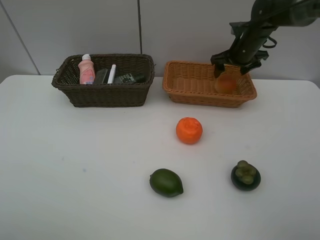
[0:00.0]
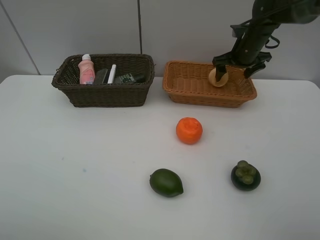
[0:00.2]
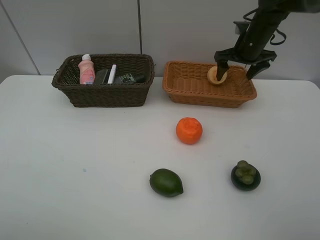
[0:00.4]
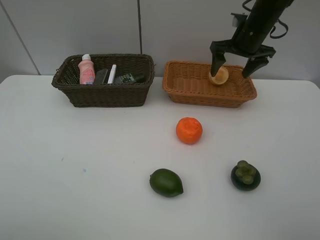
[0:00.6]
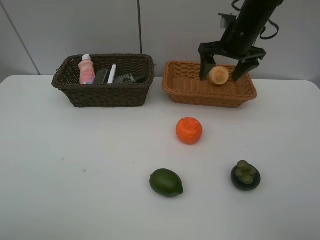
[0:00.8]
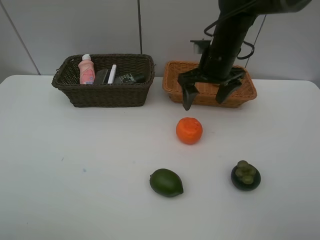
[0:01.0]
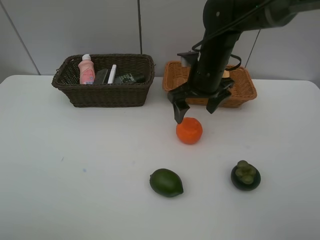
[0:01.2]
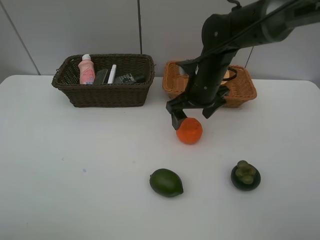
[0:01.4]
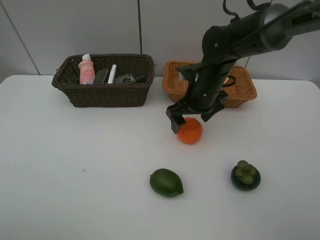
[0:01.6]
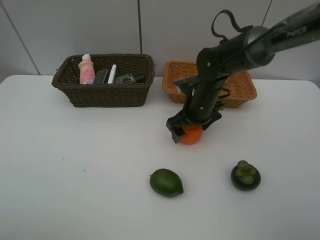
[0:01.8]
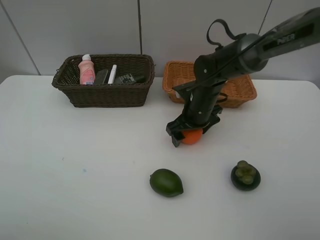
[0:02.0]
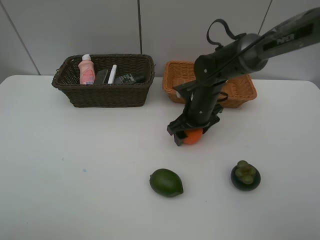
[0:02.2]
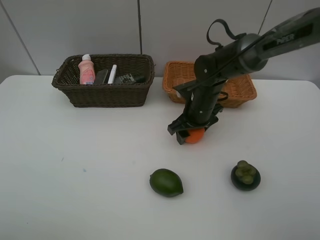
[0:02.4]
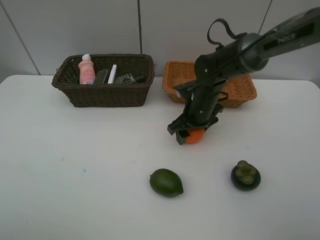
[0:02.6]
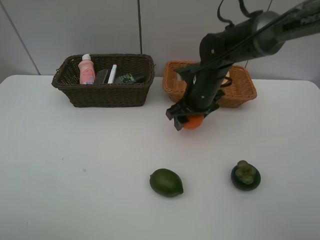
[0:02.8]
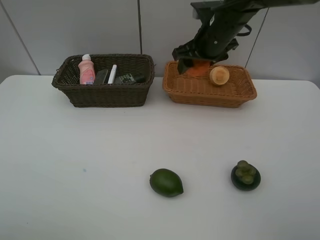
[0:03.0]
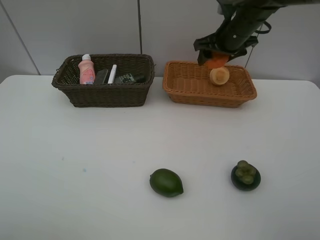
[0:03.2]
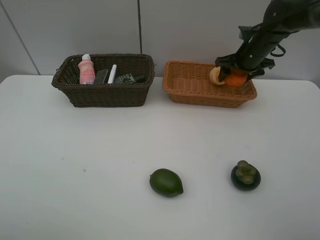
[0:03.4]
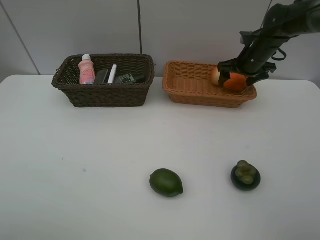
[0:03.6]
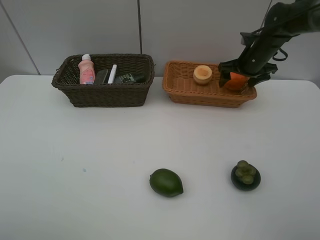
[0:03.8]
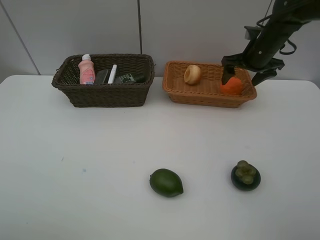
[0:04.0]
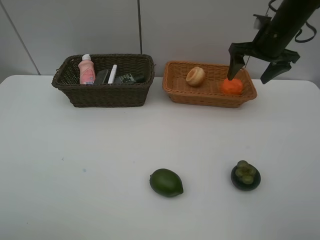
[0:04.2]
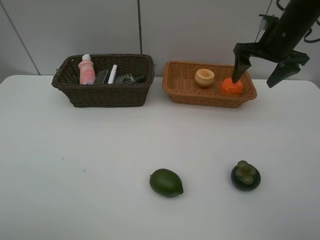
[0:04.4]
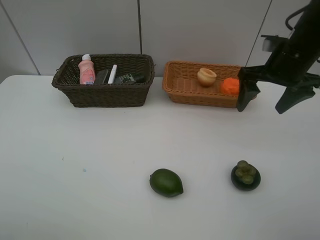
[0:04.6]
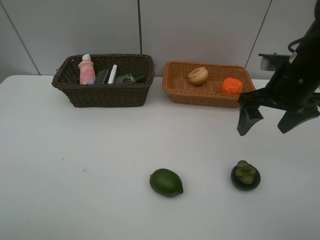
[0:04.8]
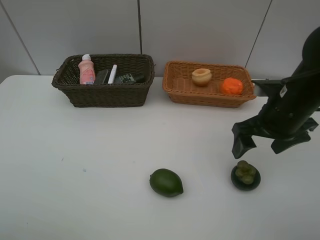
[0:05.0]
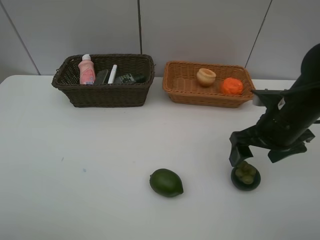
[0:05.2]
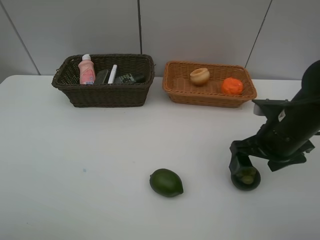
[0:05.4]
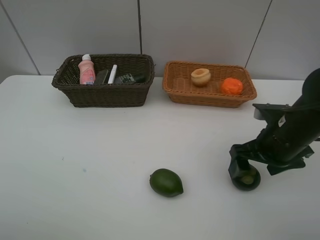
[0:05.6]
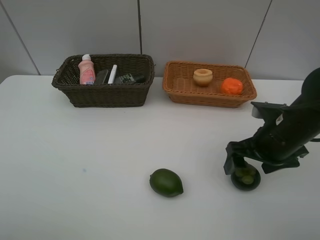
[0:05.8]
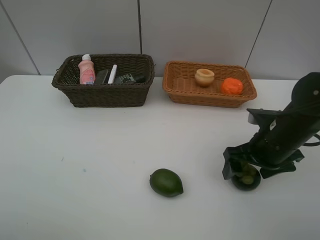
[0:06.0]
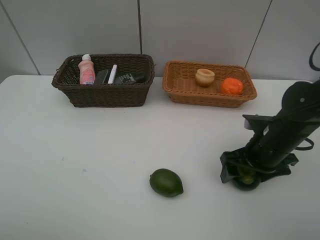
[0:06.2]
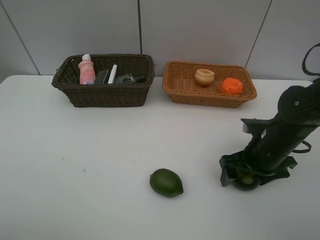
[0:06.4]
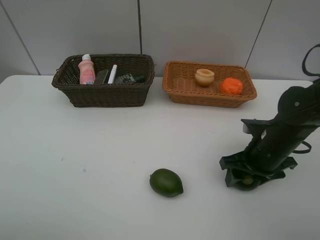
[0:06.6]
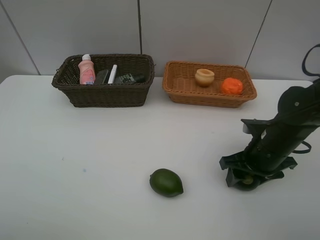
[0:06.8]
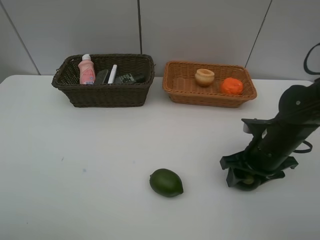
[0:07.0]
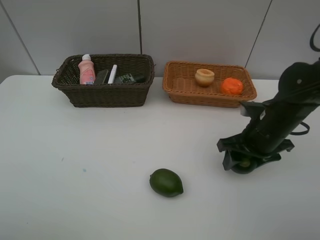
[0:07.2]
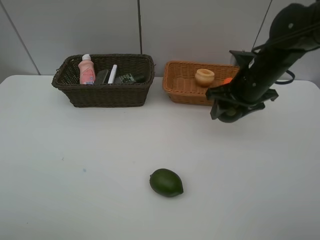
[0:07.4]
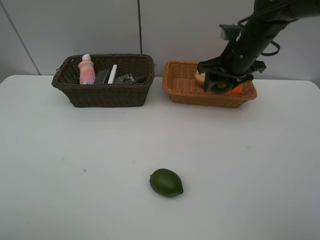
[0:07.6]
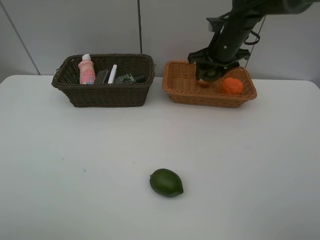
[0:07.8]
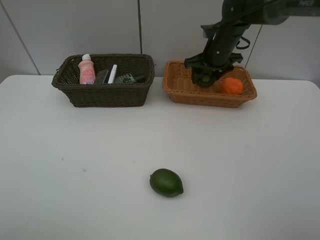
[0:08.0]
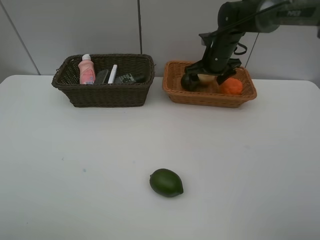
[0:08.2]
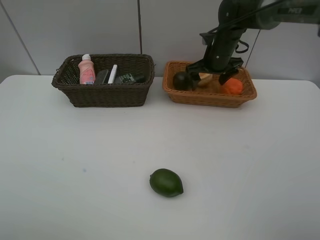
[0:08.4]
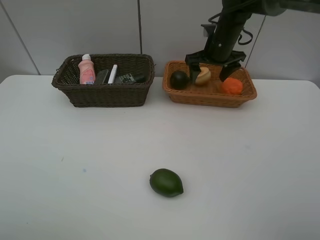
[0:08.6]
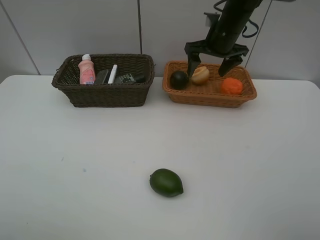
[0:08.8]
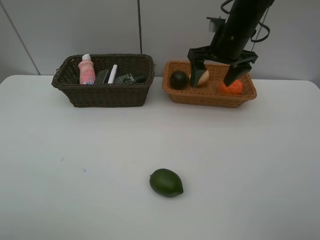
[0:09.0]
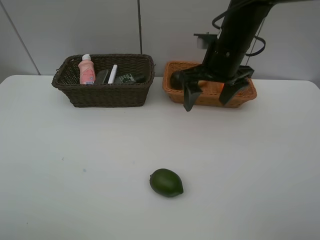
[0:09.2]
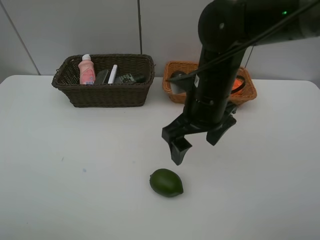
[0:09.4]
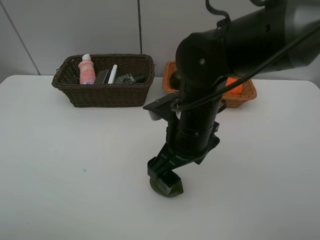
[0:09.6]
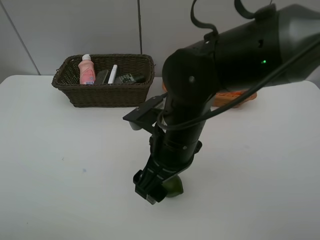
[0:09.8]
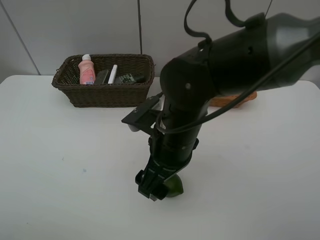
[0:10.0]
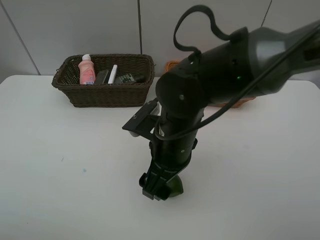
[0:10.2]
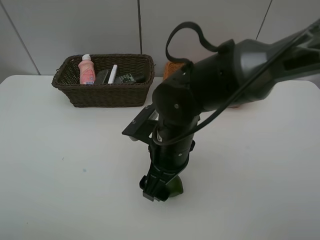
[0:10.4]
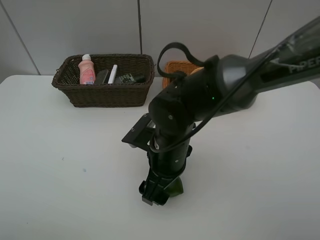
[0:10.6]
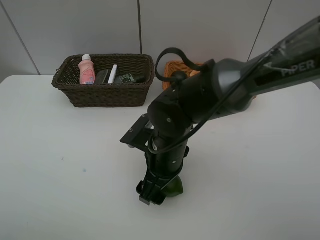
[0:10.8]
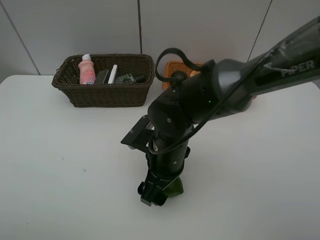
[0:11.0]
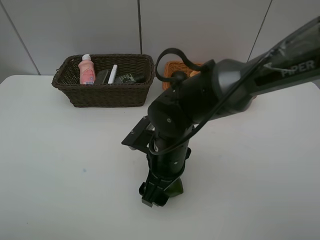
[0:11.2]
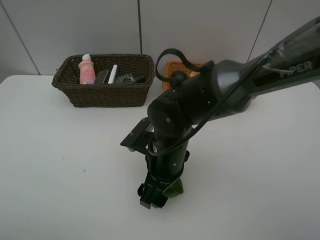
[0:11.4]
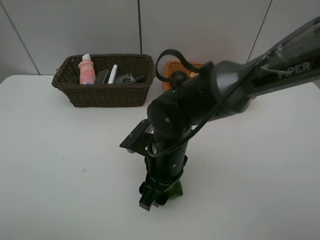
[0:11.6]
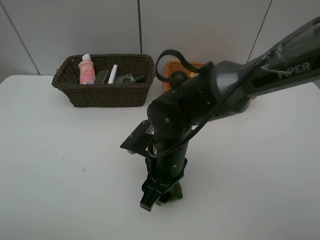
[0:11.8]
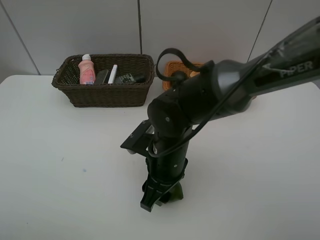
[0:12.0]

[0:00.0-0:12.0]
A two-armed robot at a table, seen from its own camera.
Task of the whole recording: Place multiple objects separately in different baskets.
Step, 0:00.4 to 0:02.8: Pick up the orange with right gripper.
Step, 0:03.0 to 0:03.6: Place the orange in the light basket with right gripper.
Step, 0:03.8 to 0:07.0: Pick up the mangosteen with right gripper.
Step, 0:07.2 to 0:08.2: Place the mangosteen in the light basket with right gripper.
0:00.0 to 0:01.6: The right gripper goes approximately 20 cm backward and to the left.
0:01.6 to 0:03.0: The right gripper goes some 10 cm upward and forward, and closes its fingers.
0:03.0 to 0:04.4: The right gripper goes roughly 10 cm to the right, and opens up.
0:04.4 to 0:06.0: The right gripper is displaced backward and downward by some 20 cm.
0:06.0 to 0:07.6: The right gripper moves forward and upward, some 20 cm, and closes up.
0:07.6 to 0:09.0: The right gripper goes forward and returns, roughly 10 cm each way, and opens up.
0:09.0 to 0:10.4: The right gripper moves backward, to the left and downward, about 25 cm.
0:10.4 to 0:12.0: The right gripper closes its fingers.

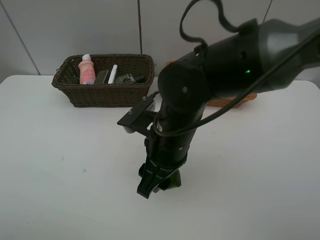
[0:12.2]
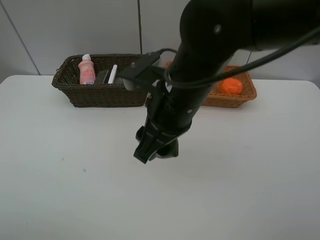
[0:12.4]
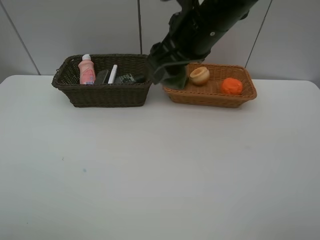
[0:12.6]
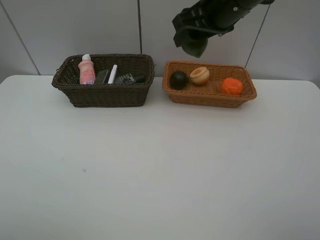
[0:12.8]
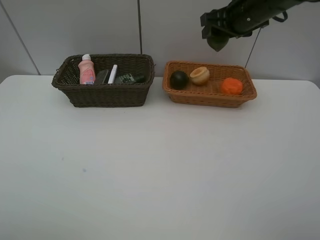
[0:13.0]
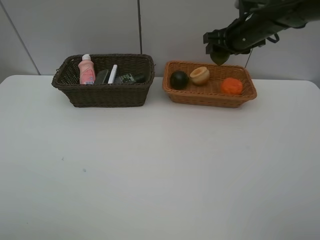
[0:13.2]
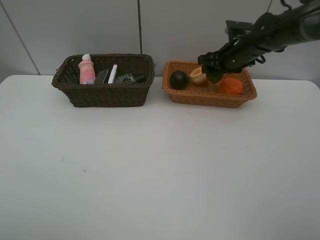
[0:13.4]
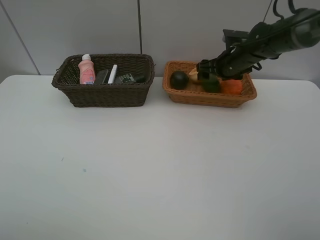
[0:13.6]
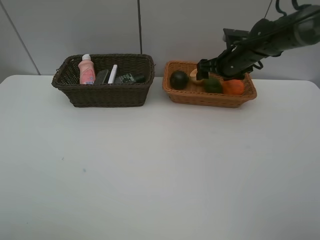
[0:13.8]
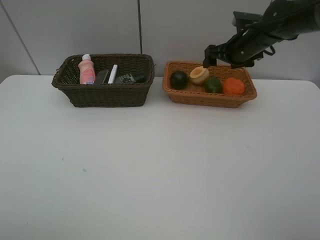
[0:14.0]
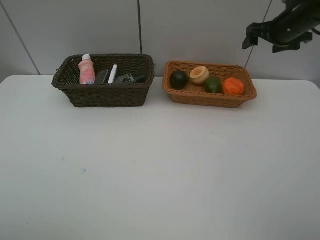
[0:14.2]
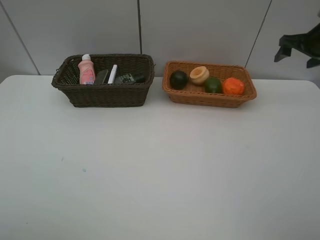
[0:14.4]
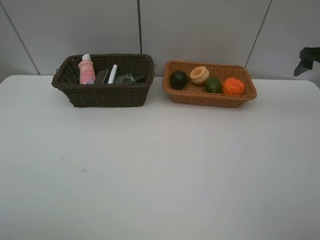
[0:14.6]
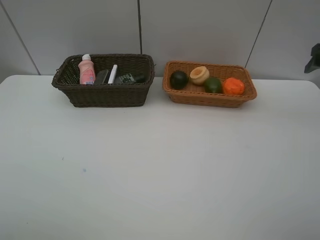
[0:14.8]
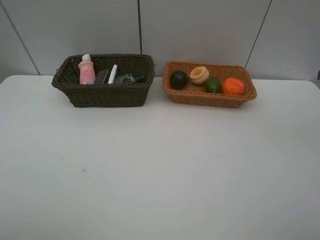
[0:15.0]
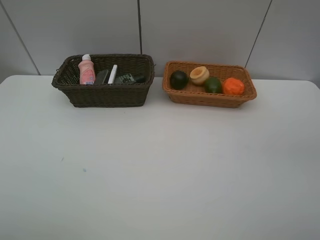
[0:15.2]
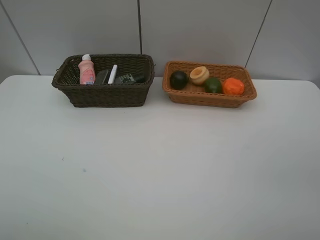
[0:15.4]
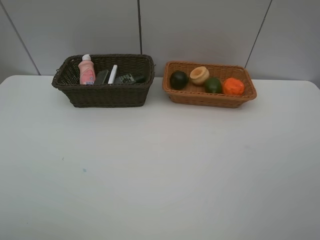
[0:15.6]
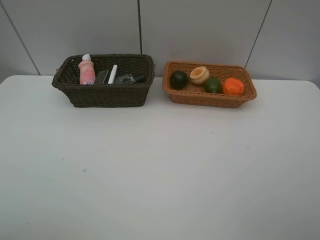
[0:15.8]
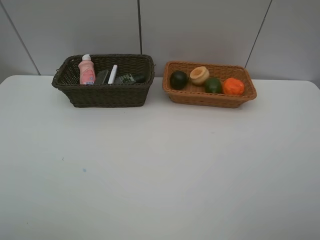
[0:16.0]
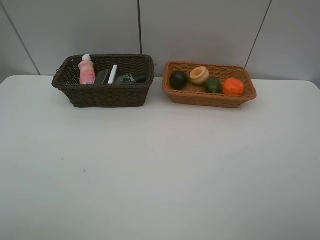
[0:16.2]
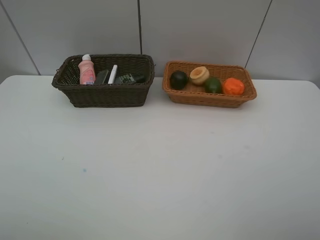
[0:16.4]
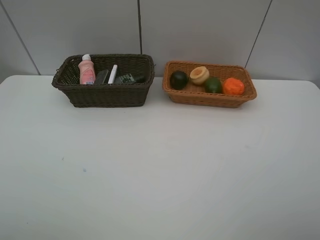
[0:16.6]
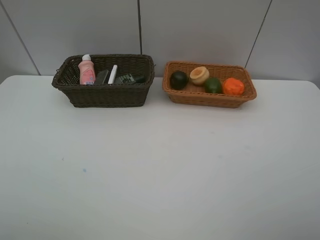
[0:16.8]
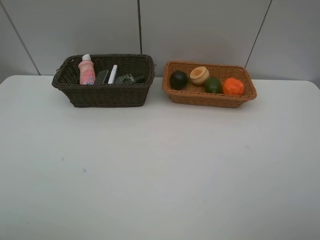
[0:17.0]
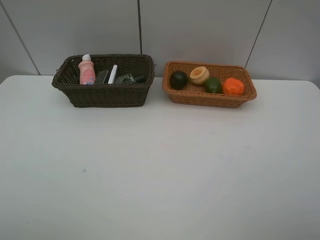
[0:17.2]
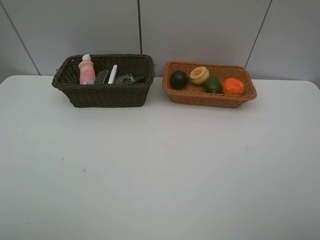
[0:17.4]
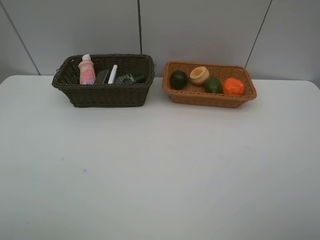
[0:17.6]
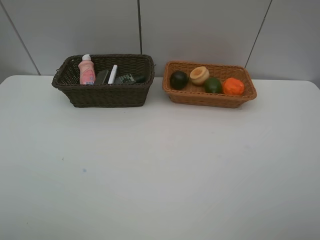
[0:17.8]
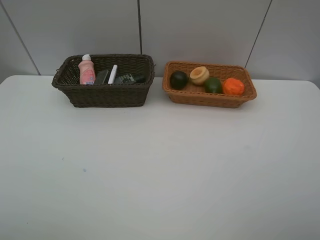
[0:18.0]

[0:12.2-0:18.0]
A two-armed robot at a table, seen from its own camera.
Task of the whole recording: Place multiple objects separately in different baskets.
Step, 0:12.4 to 0:14.0: Place the lime in the light basket with right gripper.
0:12.2 to 0:13.6: The right gripper heads forward and to the right, covering some 30 cm, and opens its fingers.
0:13.6 to 0:15.0: The right gripper goes about 30 cm backward, to the right and upward.
0:16.6 to 0:18.0: Both grippers stay put.

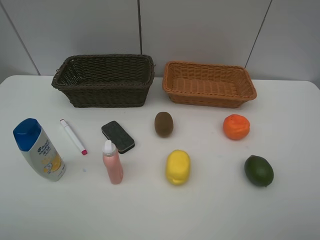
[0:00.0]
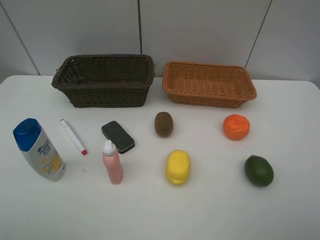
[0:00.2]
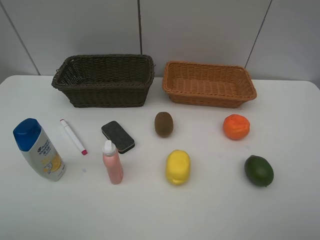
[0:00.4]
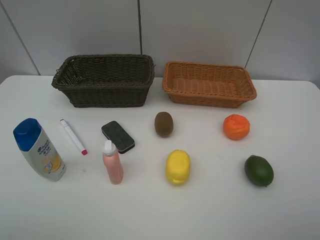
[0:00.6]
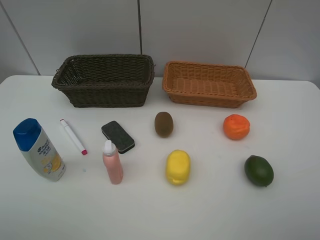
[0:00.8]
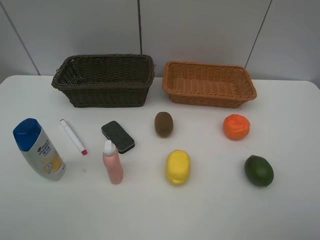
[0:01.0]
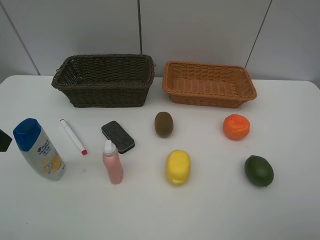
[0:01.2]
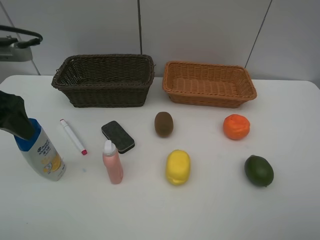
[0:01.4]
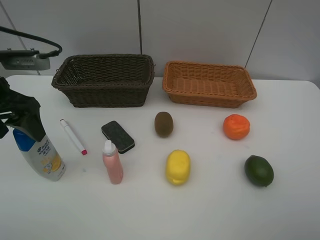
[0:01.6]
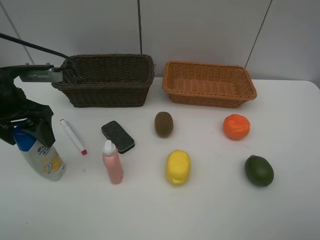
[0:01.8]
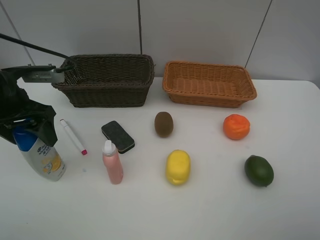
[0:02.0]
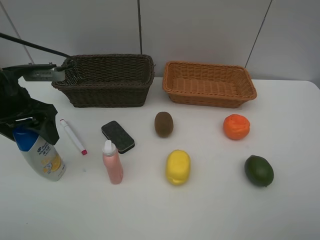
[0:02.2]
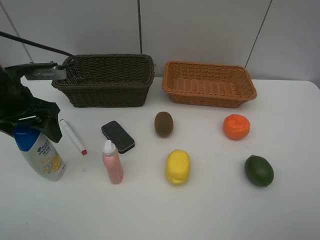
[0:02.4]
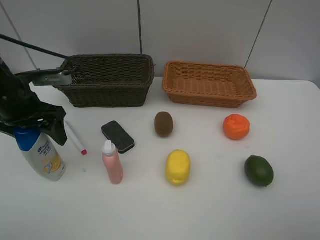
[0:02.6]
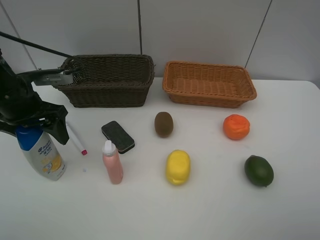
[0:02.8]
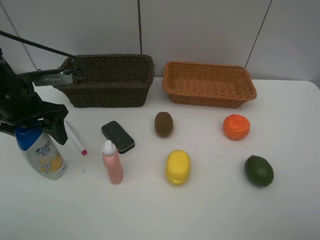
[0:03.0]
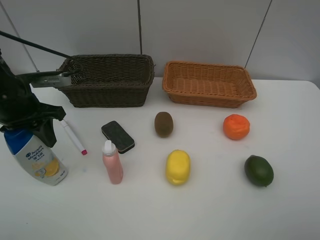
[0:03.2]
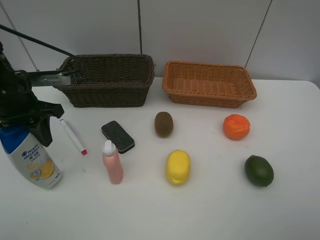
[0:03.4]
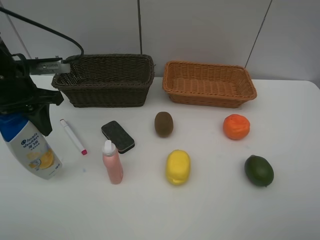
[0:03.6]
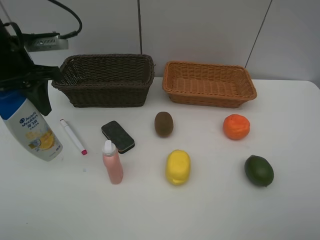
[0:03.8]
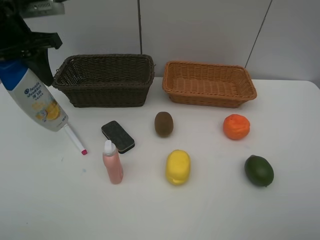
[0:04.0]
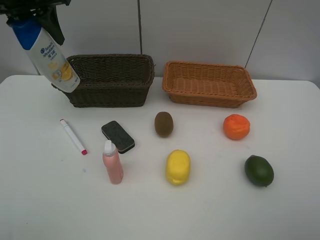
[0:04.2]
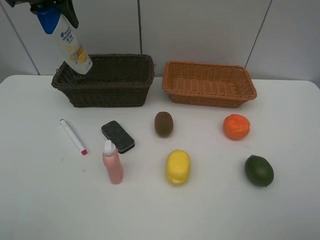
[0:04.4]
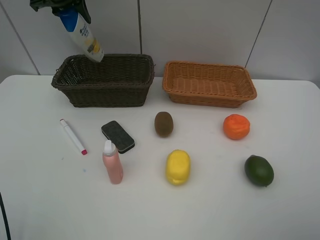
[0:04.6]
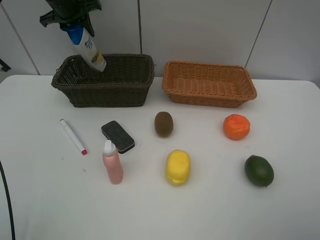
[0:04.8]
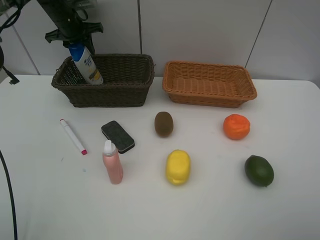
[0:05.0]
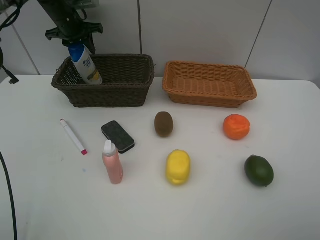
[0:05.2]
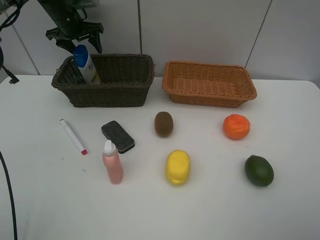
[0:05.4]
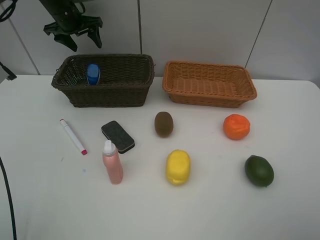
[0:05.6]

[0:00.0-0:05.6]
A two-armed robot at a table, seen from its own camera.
Task of the whole recording: Place multiple objects separately in different baskets.
Step, 0:00.0 to 0:03.6: Pick up the shampoo with left gripper.
Step, 0:03.8 to 0:05.6: Place the shampoo in the dark basket with left gripper.
0:00.0 to 0:01.4: The left gripper moves forward, approximately 20 cm.
0:01.4 to 0:02.8: The left gripper is displaced downward and forward by roughly 10 cm.
0:02.8 to 0:04.2: The left gripper moves upward and forward, roughly 20 cm, and closes its fingers.
0:04.2 to 0:05.6: The left gripper travels forward and downward by some 15 cm, and opens its fingers.
